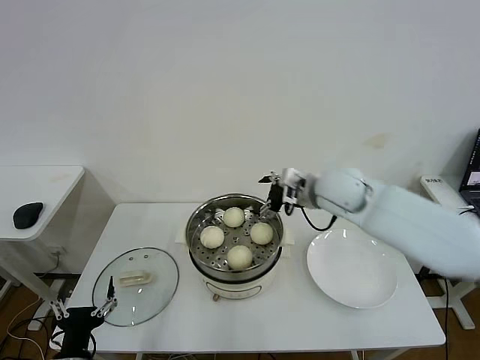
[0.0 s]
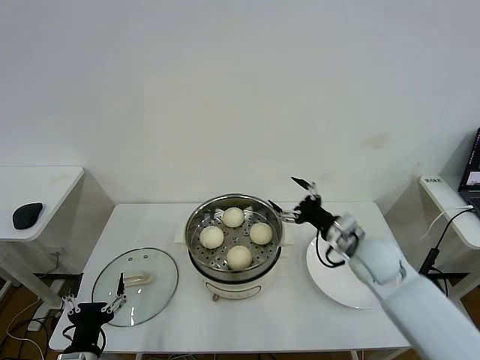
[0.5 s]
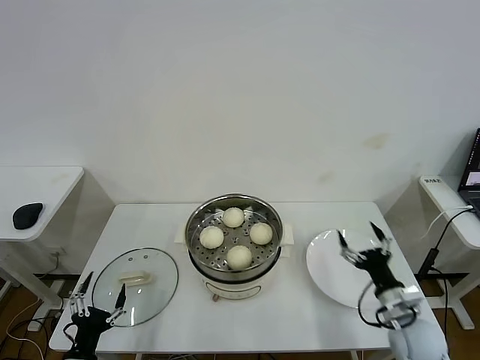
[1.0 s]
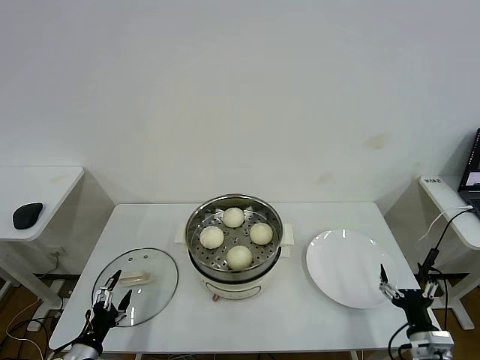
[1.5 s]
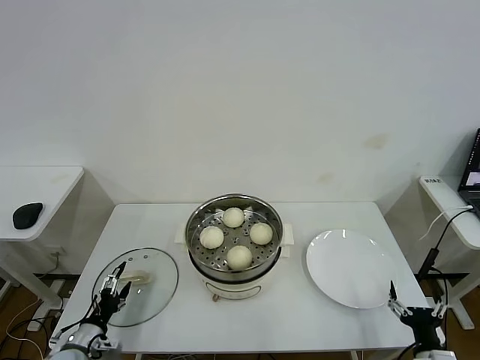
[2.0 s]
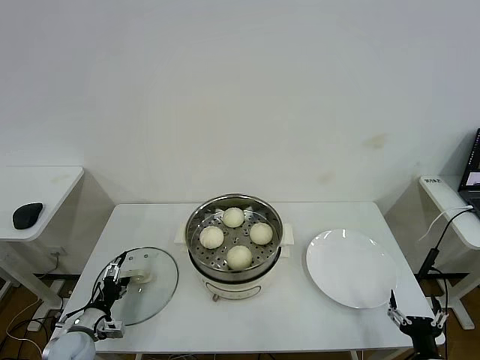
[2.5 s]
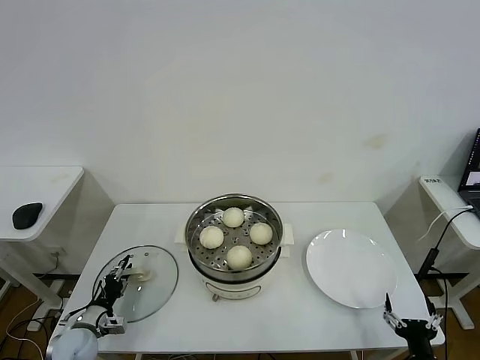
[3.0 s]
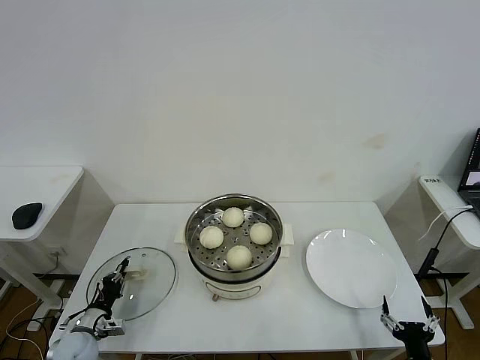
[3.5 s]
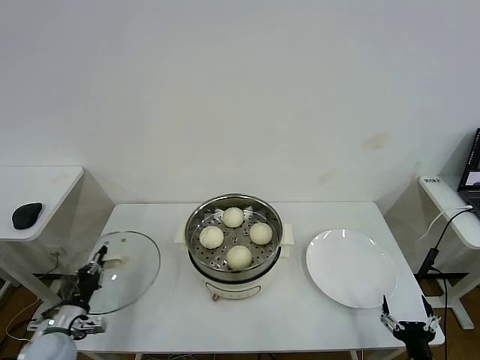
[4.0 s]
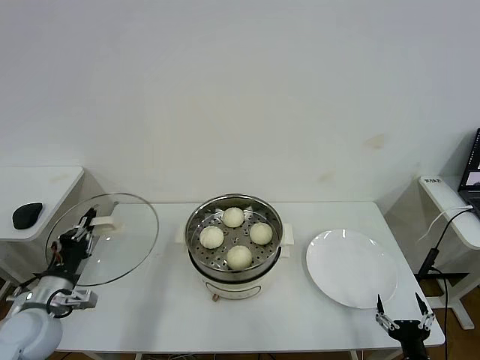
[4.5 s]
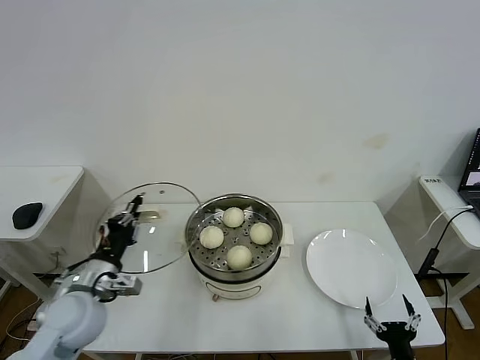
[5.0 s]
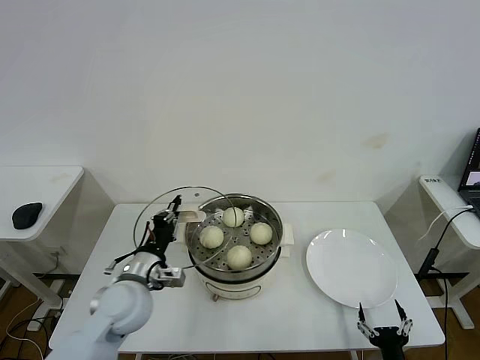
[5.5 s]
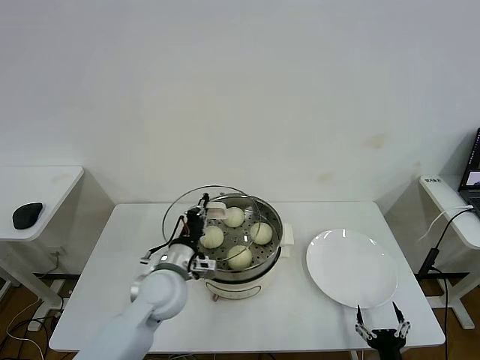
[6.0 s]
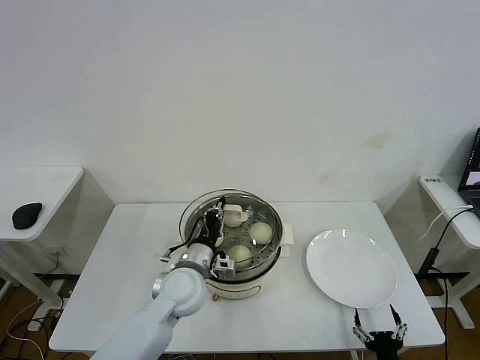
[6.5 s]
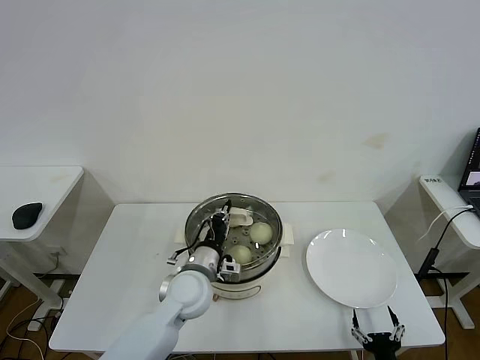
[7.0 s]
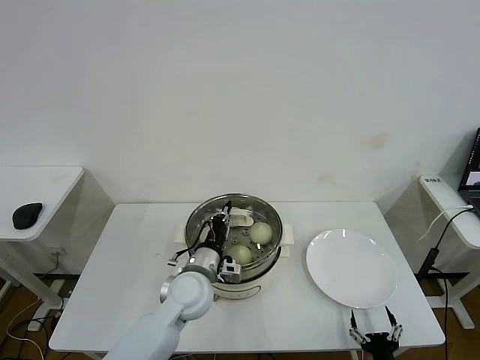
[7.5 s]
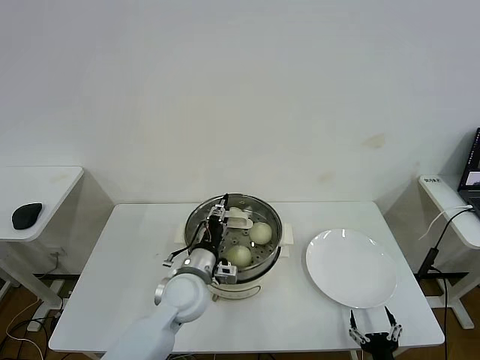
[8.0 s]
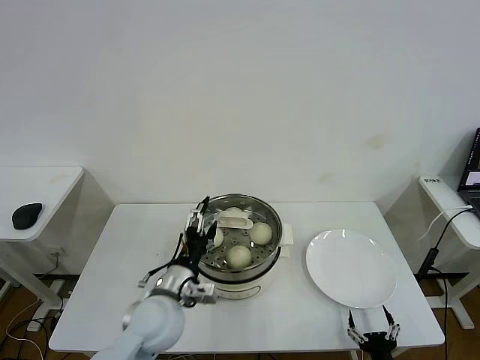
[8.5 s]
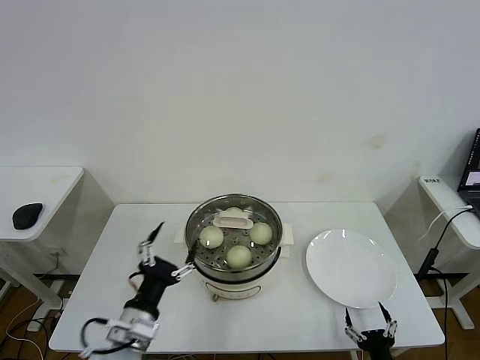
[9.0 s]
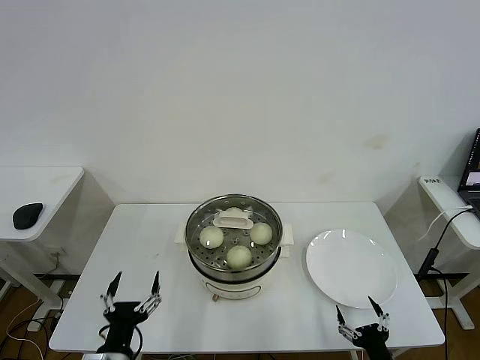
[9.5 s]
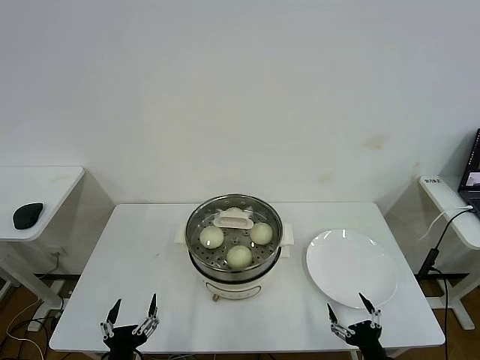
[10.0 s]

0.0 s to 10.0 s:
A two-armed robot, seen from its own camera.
Step, 0.0 to 3.0 s: Grasp the pot lid with left gripper.
Step, 3.5 to 8.0 s: Place the pot lid on the steamer with left gripper.
0.0 to 2.0 s: The right gripper shifts some 50 cm backward, downward and to the right; the left gripper heads downward, forward and to the left, covering approximately 15 cm.
2.0 to 4.0 s: The left gripper closes.
4.0 to 6.0 s: The right gripper moves about 5 cm. Meanwhile the left gripper is displaced to the right and upward by about 30 cm.
6.0 to 8.0 s: The left gripper changes place by about 5 cm, and opens its fingers.
8.0 to 10.0 s: The right gripper is displaced upward by some 5 cm, while the left gripper moves backward and to the left, about 25 cm, and opens.
